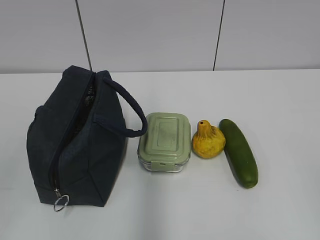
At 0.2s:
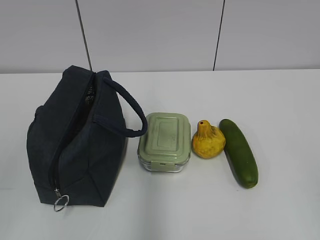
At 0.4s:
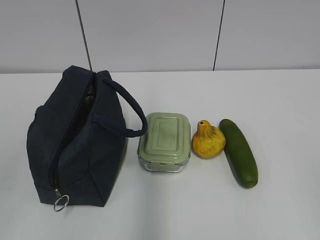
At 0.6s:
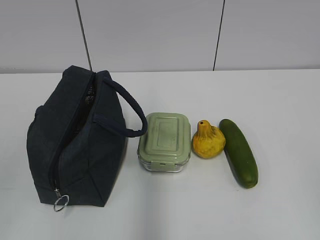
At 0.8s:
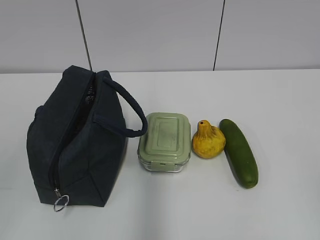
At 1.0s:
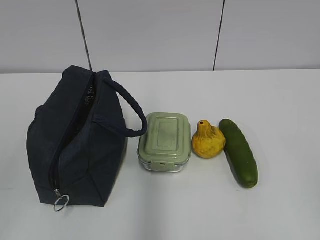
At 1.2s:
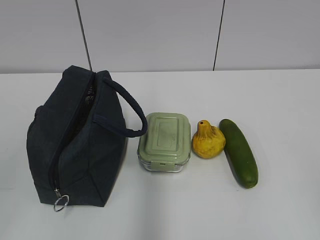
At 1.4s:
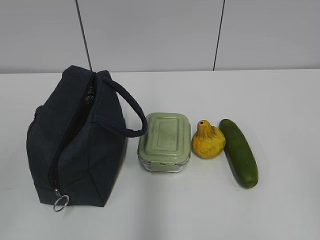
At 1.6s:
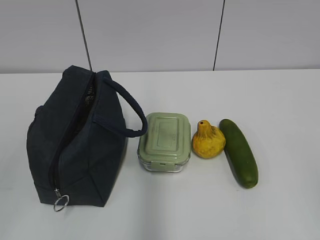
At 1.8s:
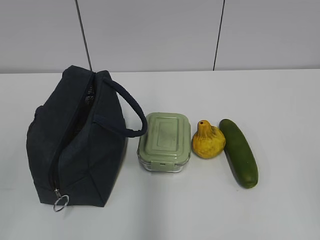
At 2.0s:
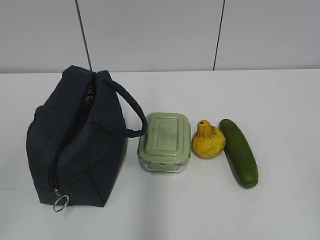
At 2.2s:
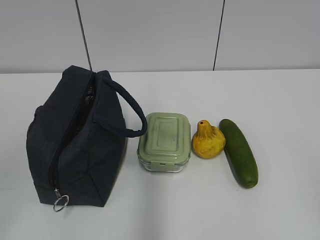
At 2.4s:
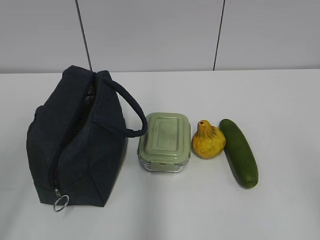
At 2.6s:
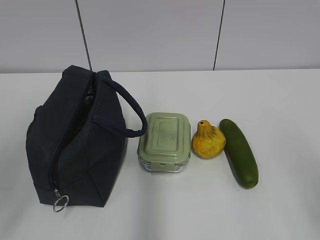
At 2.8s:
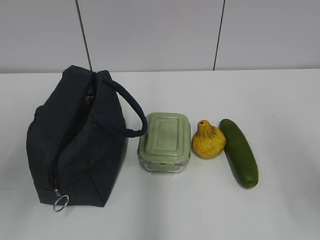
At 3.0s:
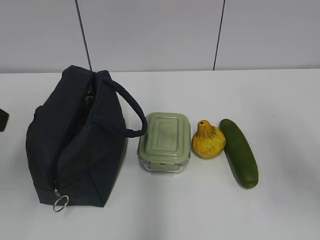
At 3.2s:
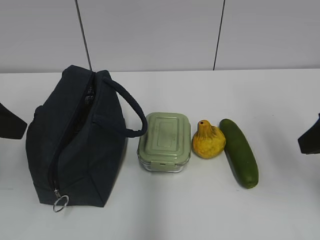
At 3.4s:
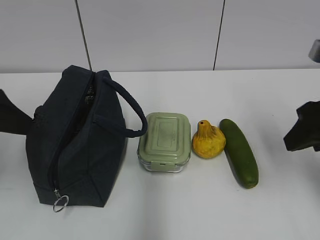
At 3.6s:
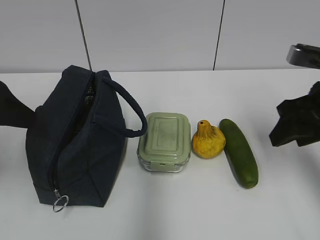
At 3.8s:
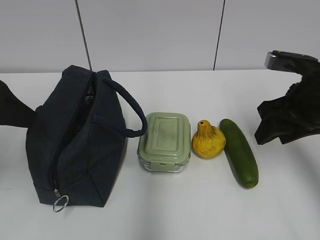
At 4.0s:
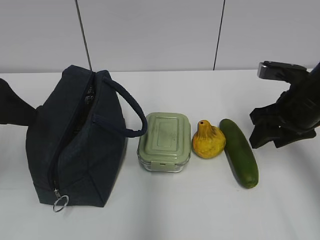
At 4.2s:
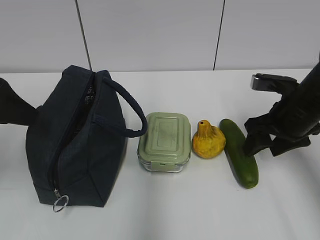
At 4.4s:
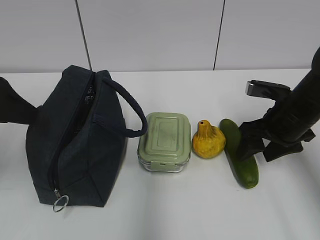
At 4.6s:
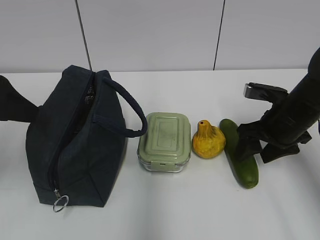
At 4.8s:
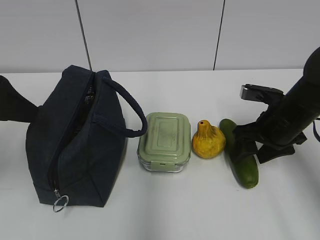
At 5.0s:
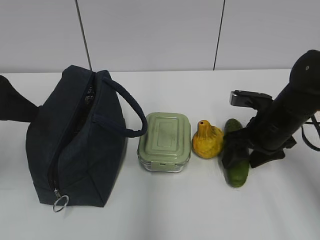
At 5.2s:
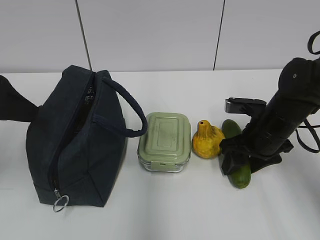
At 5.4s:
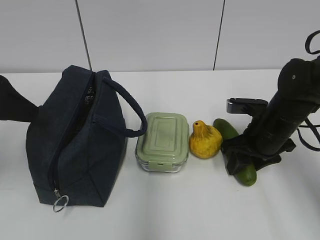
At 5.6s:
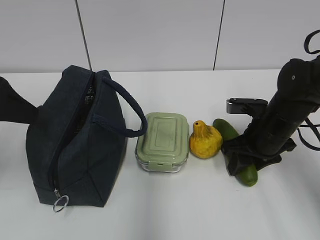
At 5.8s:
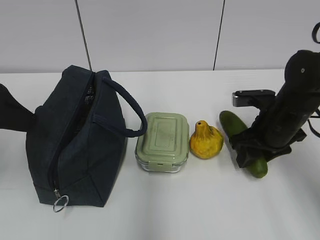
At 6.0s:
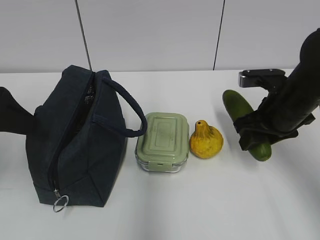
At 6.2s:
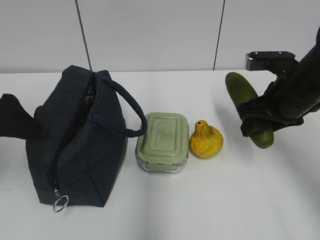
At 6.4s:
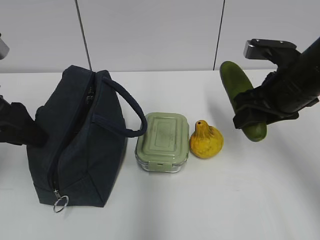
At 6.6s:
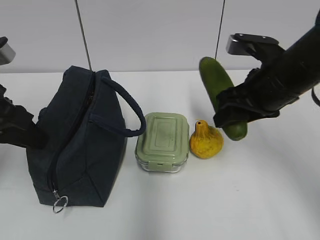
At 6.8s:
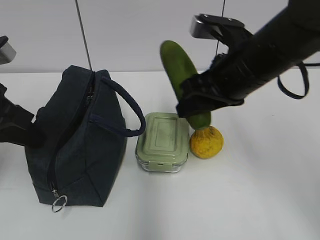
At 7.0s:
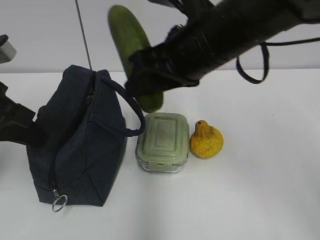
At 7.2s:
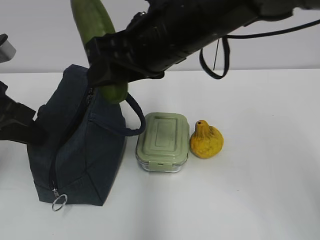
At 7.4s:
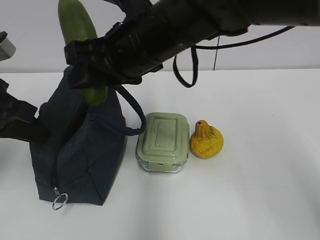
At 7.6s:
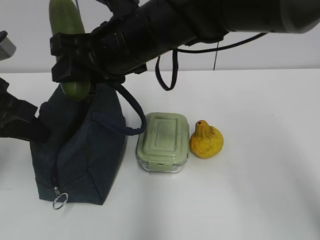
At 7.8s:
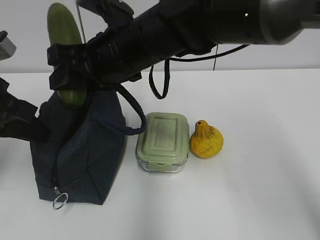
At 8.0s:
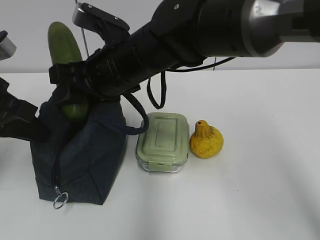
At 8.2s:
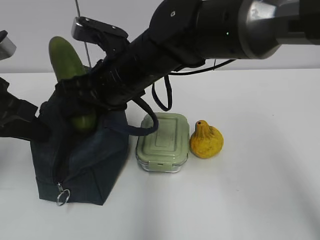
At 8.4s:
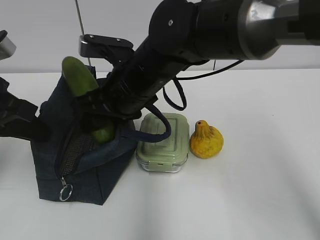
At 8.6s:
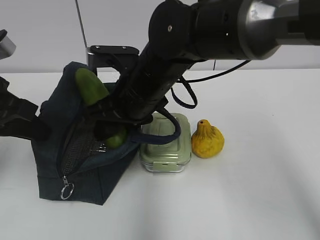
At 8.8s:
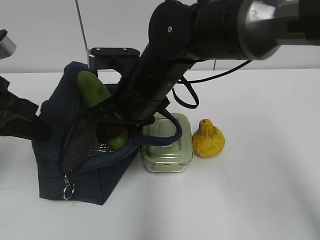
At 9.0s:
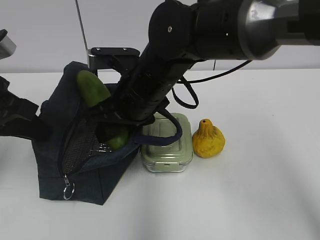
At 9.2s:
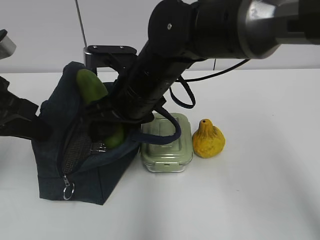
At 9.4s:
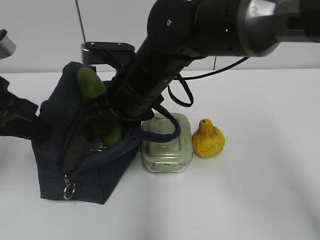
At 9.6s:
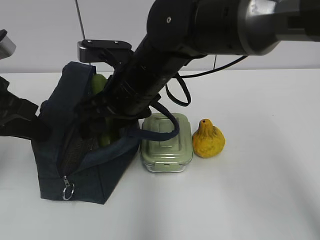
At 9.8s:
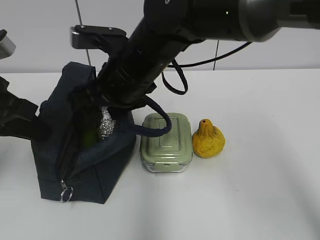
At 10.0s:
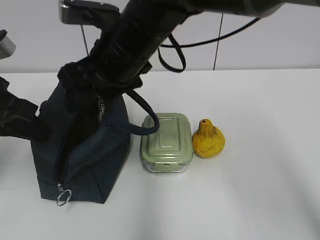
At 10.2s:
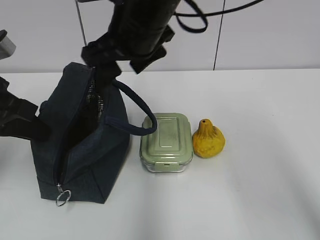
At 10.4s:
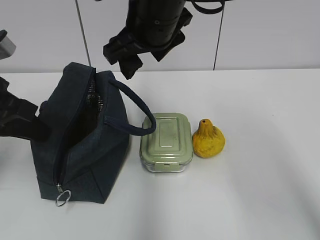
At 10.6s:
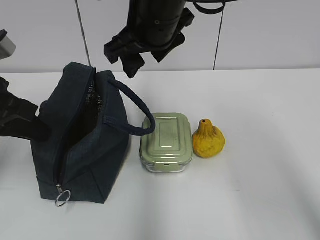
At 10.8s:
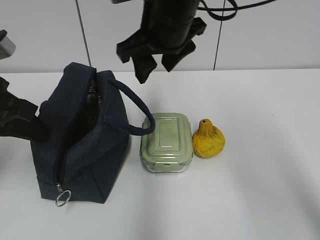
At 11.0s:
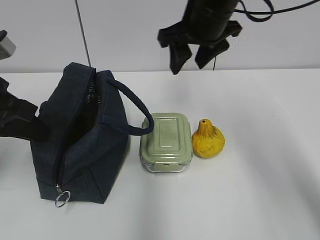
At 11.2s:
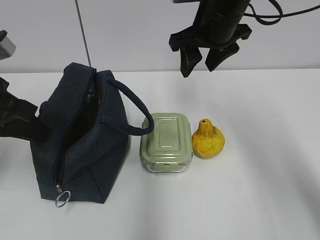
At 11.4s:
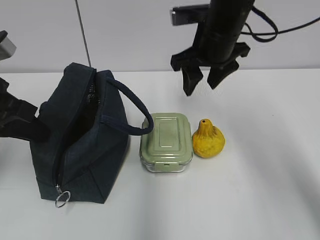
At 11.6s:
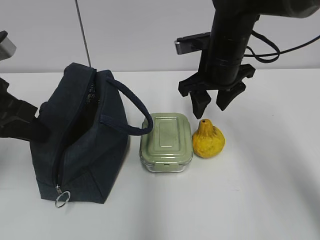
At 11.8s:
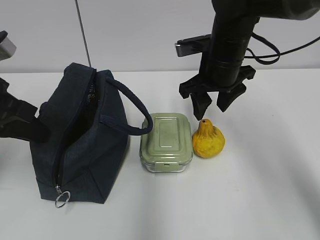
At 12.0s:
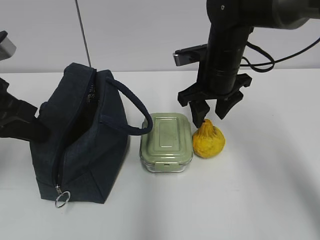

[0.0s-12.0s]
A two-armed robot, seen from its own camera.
Step, 0.0s to 5.4s: Grab the cucumber with your right hand.
Step, 8.6s to 10.2s: Place it into the bag with your right hand.
1.6s to 3.0s: The grippers both shift forward by some 20 cm. The left gripper opens up; the right gripper opens its fingers.
3.0s to 4.4s: The left gripper changes place by roughly 5 cm. The right gripper is displaced forward and downward by approximately 20 cm.
4.4s to 6.0s: The grippers make only small movements.
6.0s to 7.6s: The right gripper travels to the left and upward by roughly 25 cm; the left gripper closes up.
7.6s to 9.0s: The right gripper shifts some 5 cm downward.
9.0s to 10.4s: The right gripper shifts approximately 10 cm upward.
10.4s to 12.0s: The right gripper heads downward and to the right, covering approximately 15 cm.

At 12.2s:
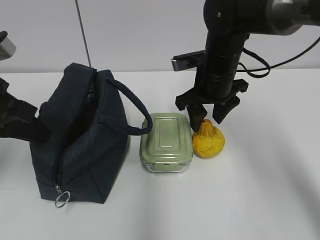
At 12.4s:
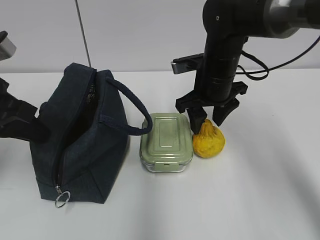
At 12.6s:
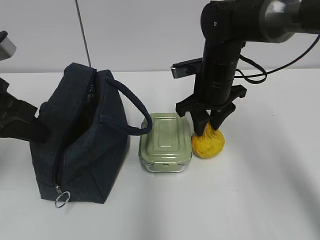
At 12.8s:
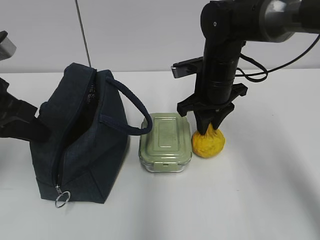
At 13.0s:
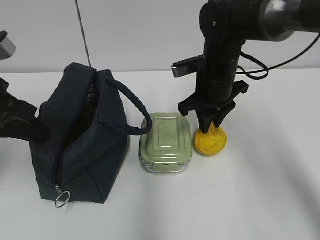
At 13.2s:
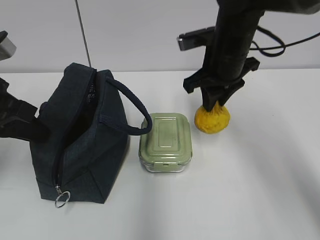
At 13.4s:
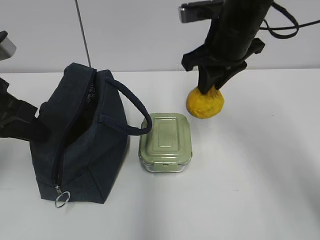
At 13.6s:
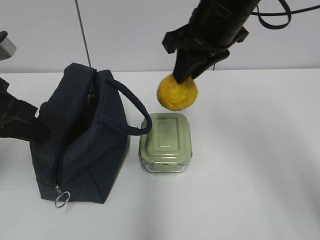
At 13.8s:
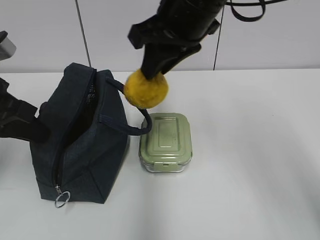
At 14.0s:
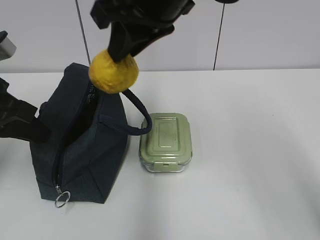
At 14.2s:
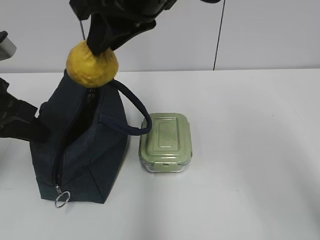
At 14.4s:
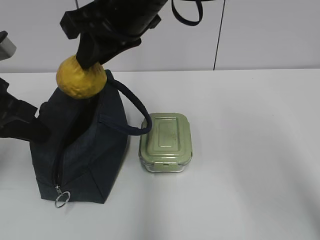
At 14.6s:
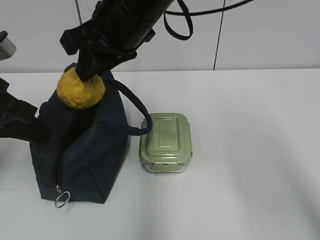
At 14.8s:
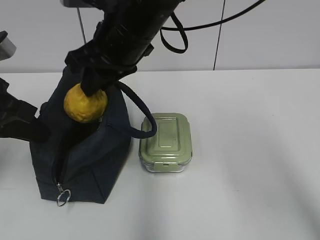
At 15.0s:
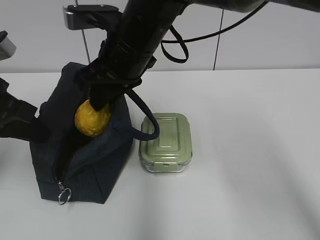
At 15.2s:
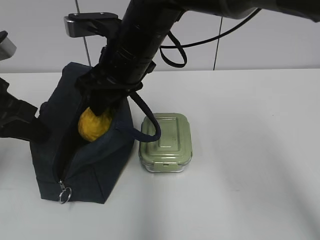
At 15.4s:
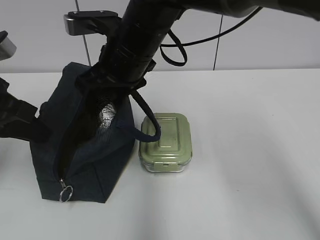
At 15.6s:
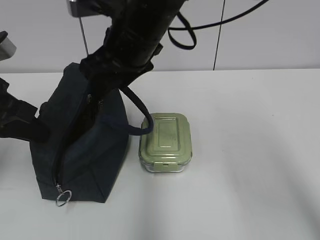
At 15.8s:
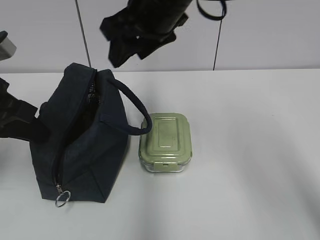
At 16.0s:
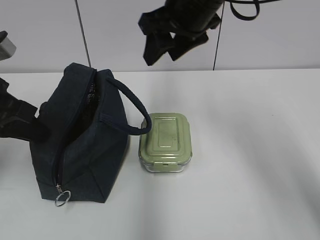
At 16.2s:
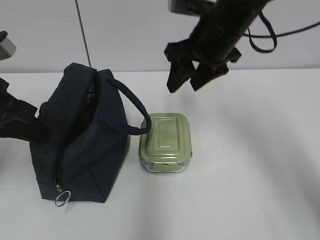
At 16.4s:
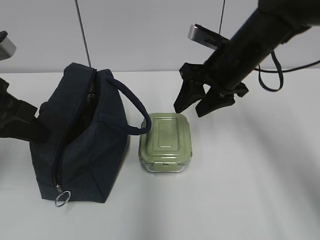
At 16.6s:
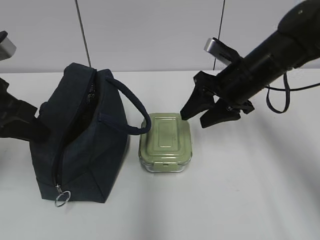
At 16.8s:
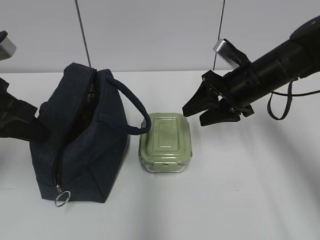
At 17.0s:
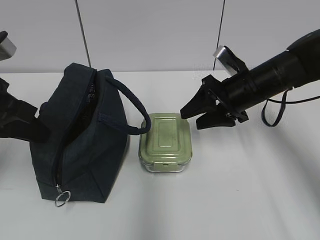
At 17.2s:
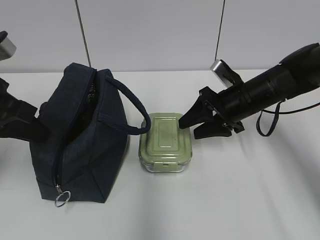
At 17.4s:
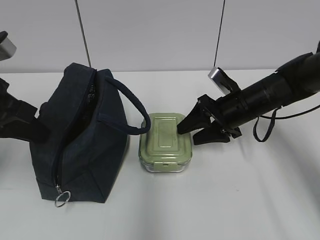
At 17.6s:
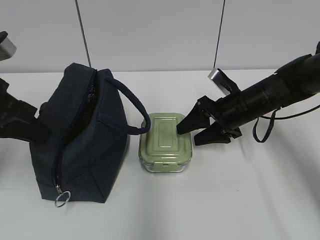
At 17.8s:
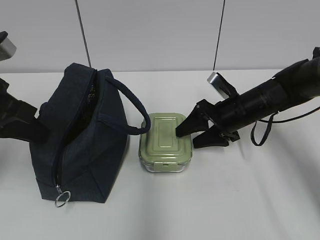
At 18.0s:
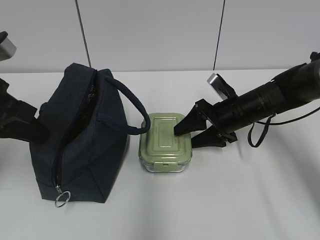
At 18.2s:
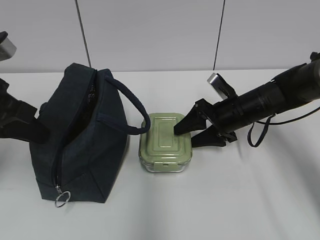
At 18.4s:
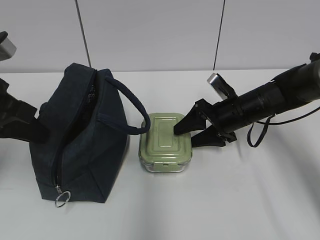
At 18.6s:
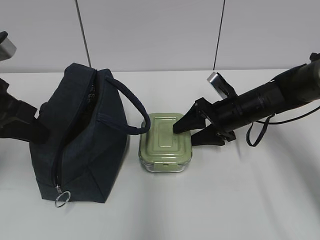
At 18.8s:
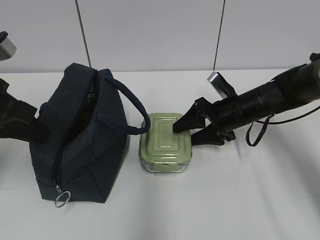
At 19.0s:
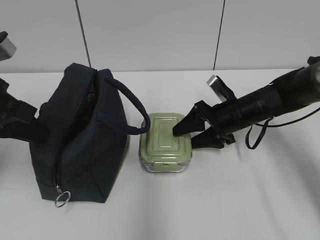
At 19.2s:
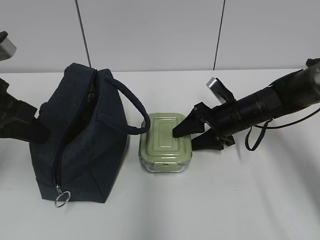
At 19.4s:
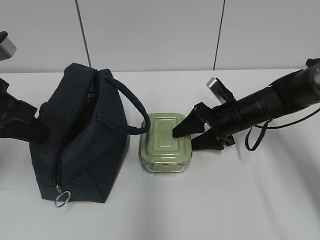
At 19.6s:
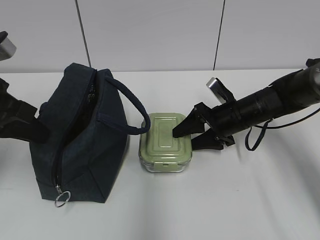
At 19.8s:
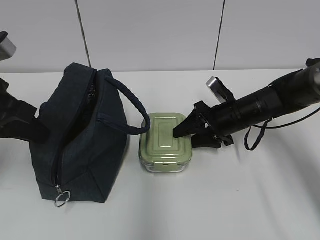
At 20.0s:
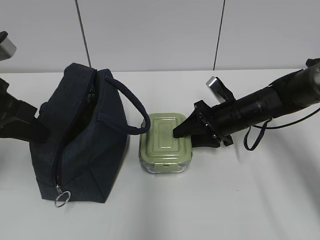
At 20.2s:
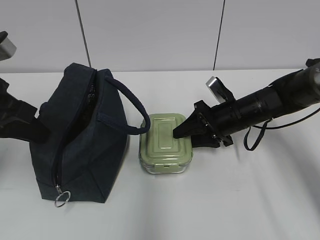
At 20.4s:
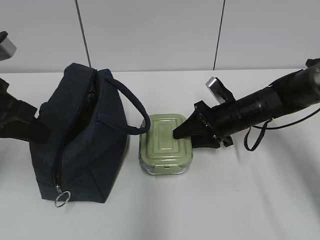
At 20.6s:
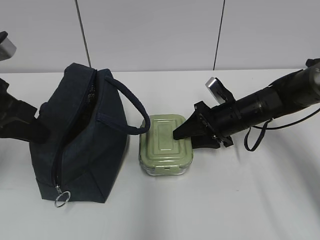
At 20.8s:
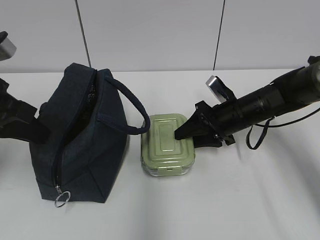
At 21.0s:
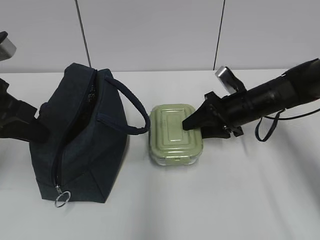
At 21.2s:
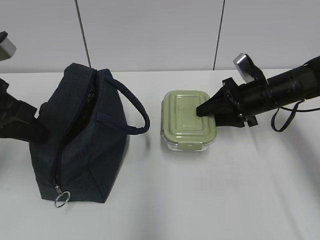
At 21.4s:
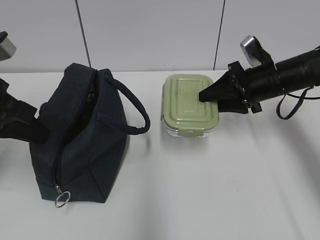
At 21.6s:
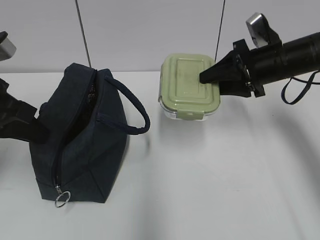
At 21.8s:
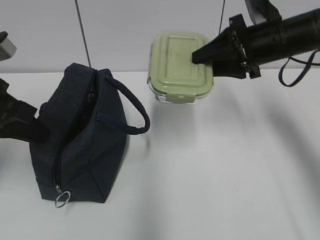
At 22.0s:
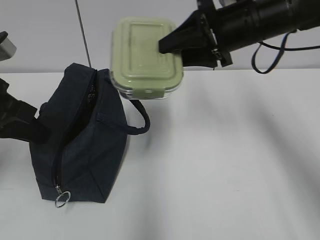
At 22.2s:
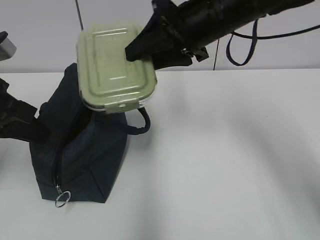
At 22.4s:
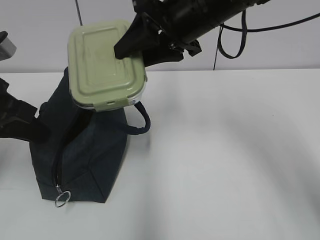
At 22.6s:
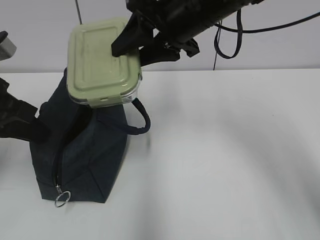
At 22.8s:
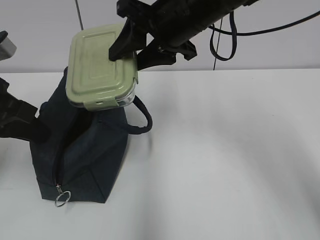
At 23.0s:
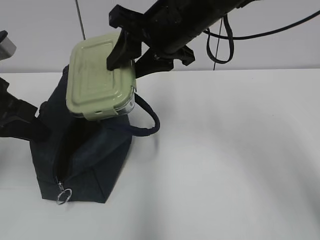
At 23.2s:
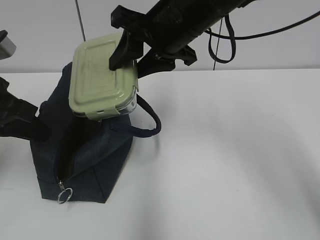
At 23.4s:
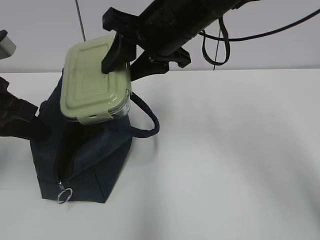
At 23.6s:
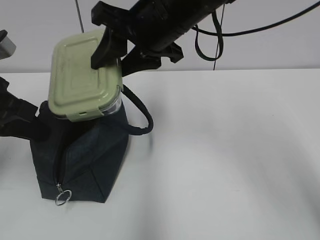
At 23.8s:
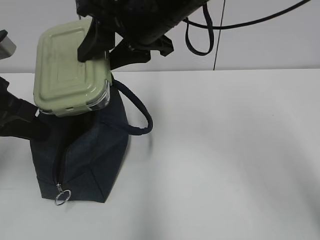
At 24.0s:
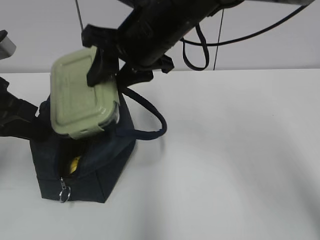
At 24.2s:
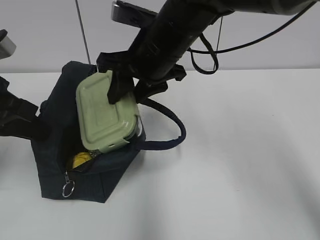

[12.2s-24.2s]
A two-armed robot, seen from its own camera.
Step, 13.2s to 15.2s: Place it into the bag with your right hand.
Step, 15.4s to 20.2s: Grab the lunch box with your right hand.
12.2s to 13.8s: The right gripper shifts approximately 15 cm upward, backward and to the left, and closes.
13.8s to 15.2s: The right gripper goes some 10 cm downward and to the left.
15.2s to 16.6s: The right gripper is displaced to the right by about 20 cm.
16.6s to 18.2s: The right gripper moves downward, about 10 cm.
18.2s to 19.8s: The two grippers keep their place.
19.8s to 21.2s: The right gripper shifts by approximately 5 cm.
21.2s to 22.6s: The right gripper travels upward and to the left by roughly 25 cm.
22.6s to 24.2s: The right gripper shifts by roughly 5 cm.
